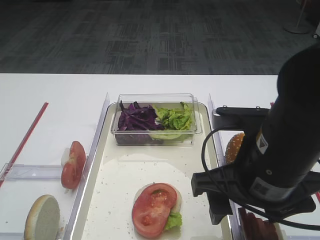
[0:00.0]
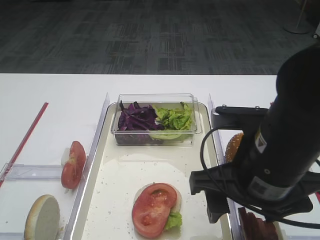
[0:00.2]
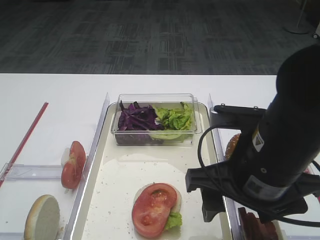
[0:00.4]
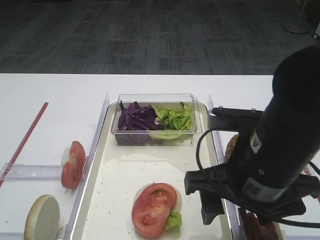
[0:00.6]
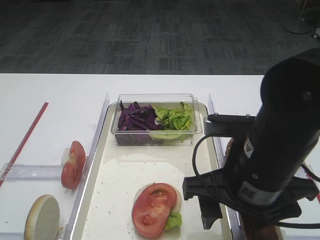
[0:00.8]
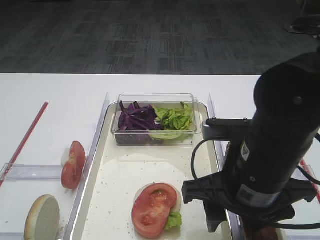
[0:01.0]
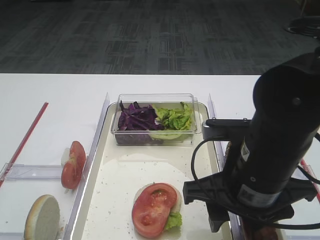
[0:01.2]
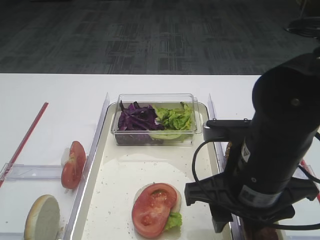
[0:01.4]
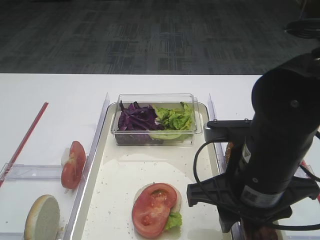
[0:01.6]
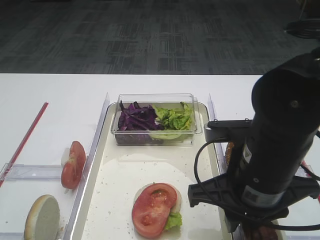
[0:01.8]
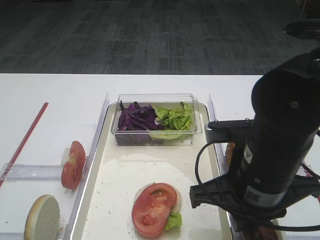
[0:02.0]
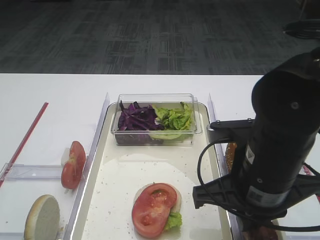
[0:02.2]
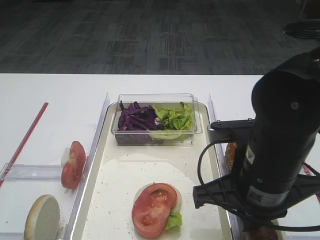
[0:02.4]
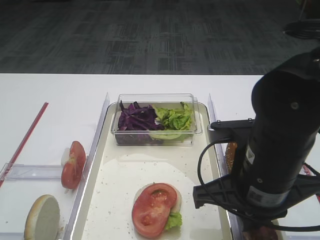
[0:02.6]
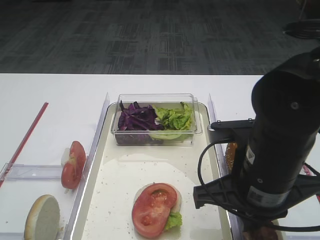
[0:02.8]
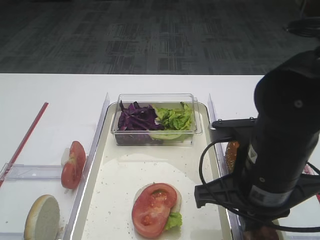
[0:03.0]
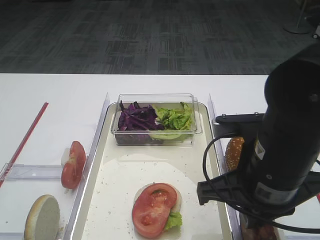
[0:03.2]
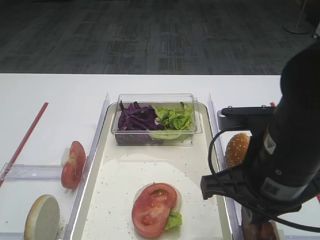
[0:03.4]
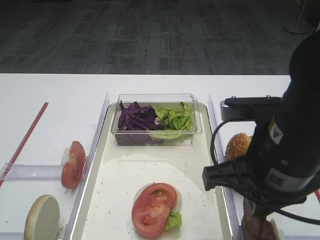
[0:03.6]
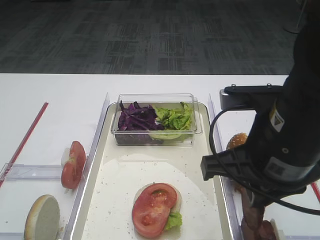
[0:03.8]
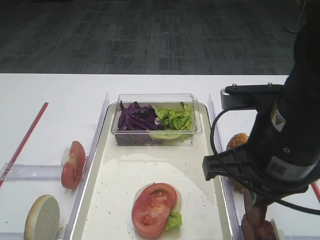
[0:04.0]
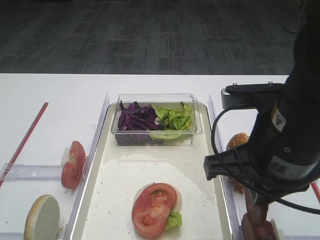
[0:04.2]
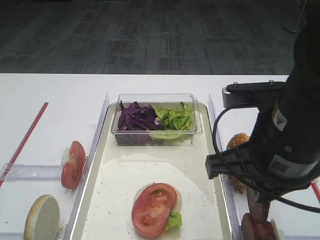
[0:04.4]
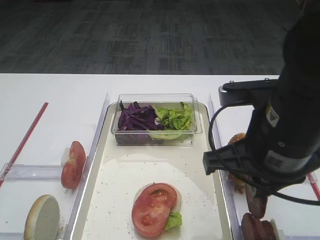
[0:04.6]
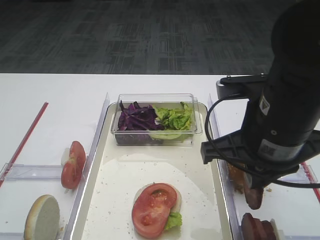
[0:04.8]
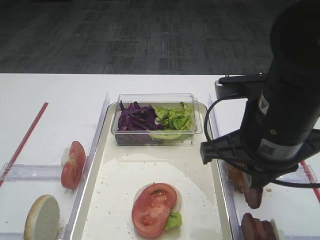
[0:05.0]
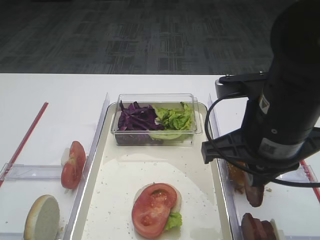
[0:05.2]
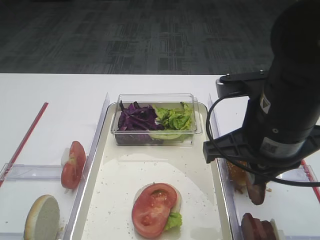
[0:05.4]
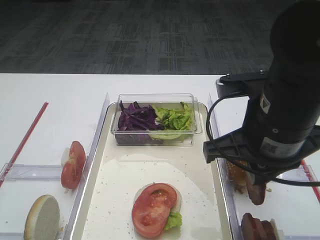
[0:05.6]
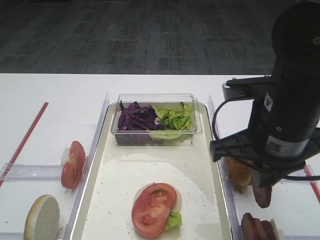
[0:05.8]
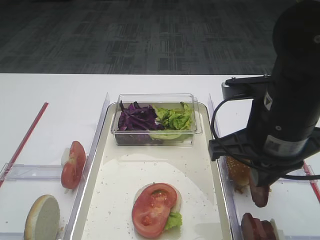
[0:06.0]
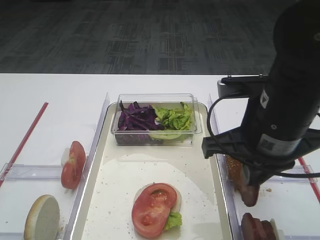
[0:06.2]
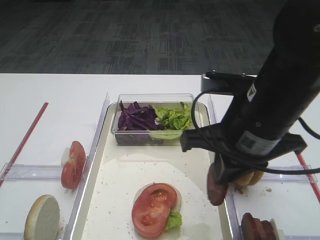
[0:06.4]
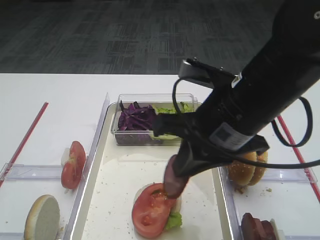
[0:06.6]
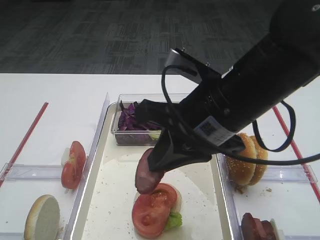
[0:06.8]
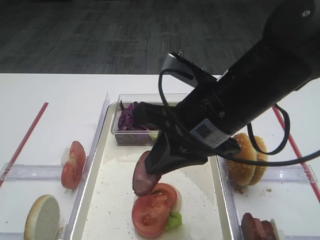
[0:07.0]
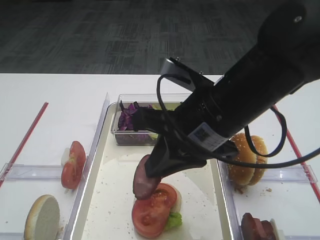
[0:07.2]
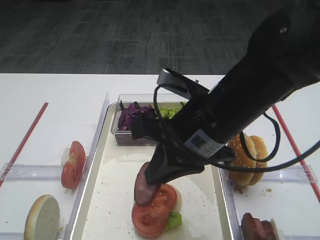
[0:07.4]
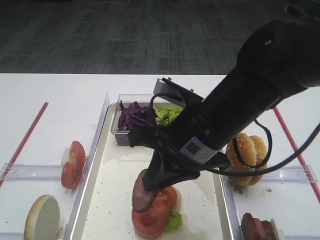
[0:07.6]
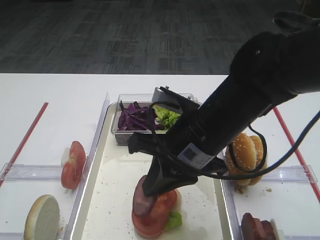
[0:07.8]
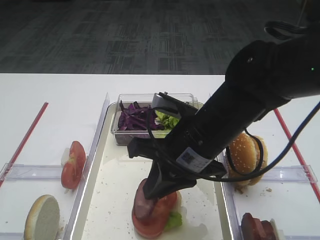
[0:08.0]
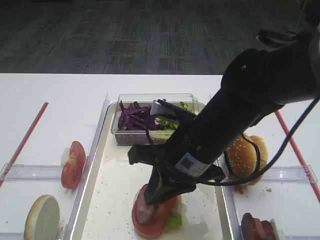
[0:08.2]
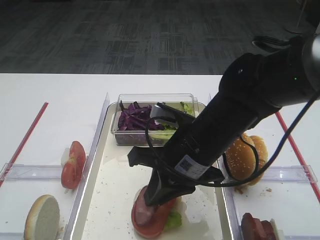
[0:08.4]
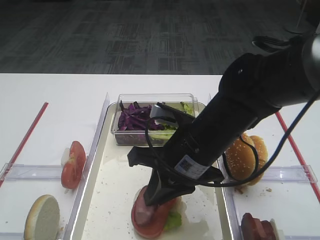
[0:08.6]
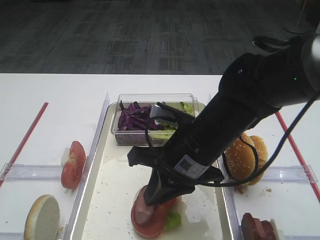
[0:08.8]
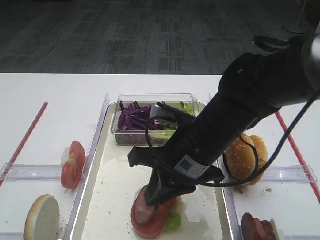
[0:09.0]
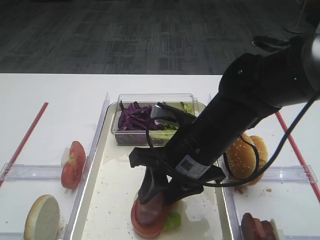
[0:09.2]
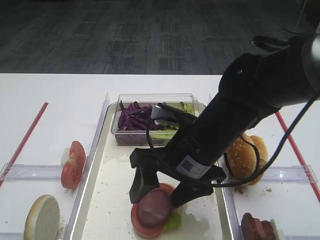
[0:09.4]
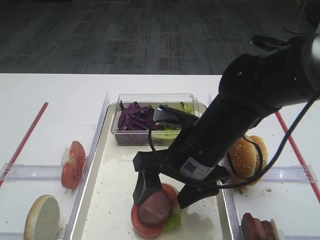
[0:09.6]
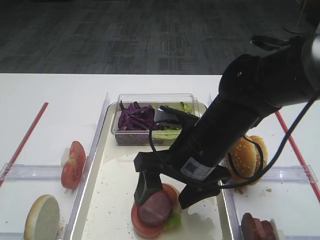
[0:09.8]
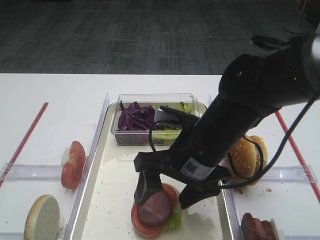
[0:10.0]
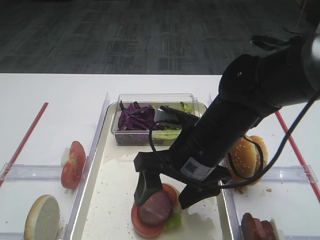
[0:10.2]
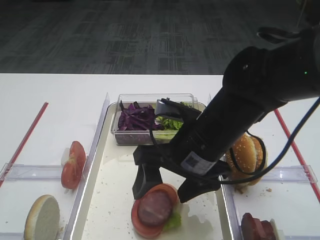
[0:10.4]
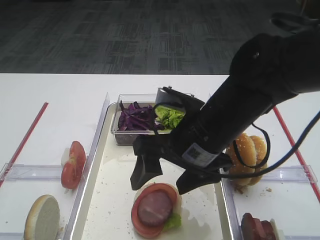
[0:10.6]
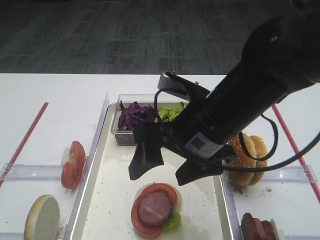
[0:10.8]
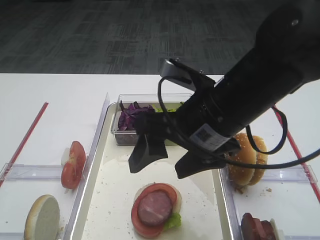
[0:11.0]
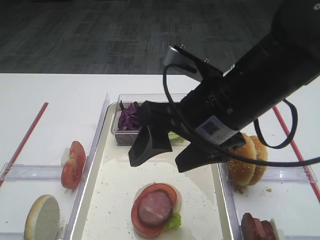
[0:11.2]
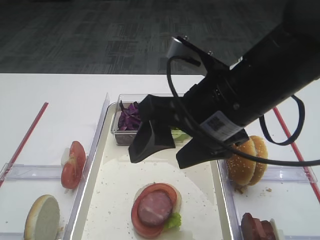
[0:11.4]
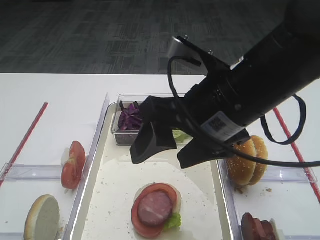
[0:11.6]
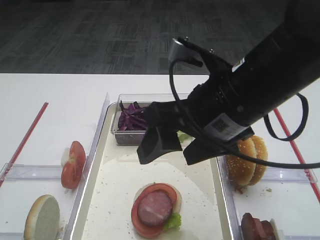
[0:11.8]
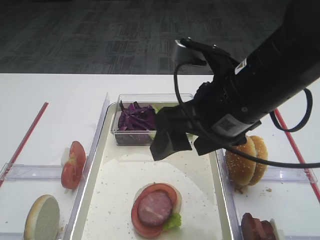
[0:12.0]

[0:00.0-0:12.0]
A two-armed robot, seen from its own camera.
Step, 0:00.0 to 0:04.2: Pick up the cutlet with the right gripper.
Step, 0:04.4 to 0:10.6: Place the cutlet on the tomato slice with the right gripper.
0:00.0 to 0:01.6: The right gripper closes up.
0:01.6 to 0:03.0: The right gripper closes its fingers.
0:03.0 to 0:04.4: The right gripper is displaced upward by approximately 5 cm.
0:04.4 to 0:06.0: The grippers stay close to where they were, moving slightly.
0:06.0 to 0:07.6: The right gripper travels to the left by approximately 5 cm.
0:07.6 to 0:09.0: The grippers make only small movements.
0:09.0 to 0:10.4: The right gripper opens its fingers.
0:10.4 to 0:12.0: The right gripper travels upward by approximately 10 cm.

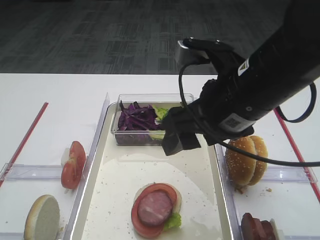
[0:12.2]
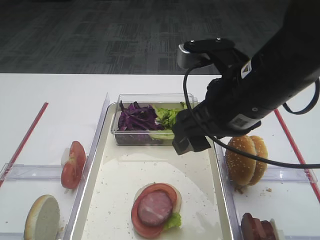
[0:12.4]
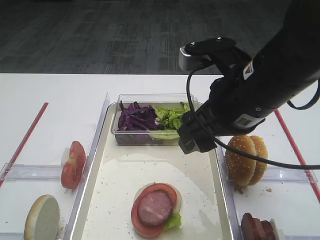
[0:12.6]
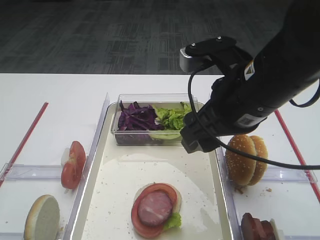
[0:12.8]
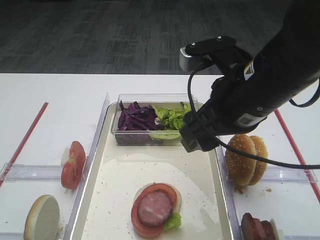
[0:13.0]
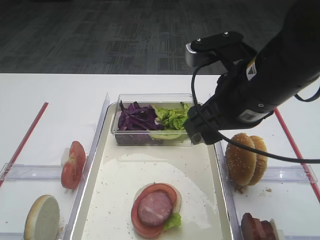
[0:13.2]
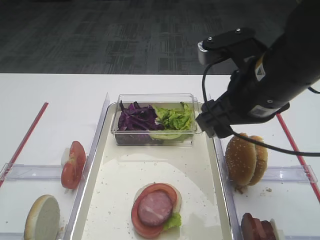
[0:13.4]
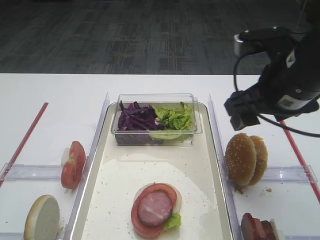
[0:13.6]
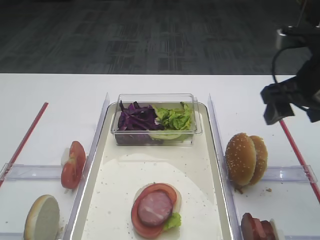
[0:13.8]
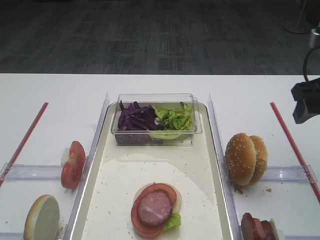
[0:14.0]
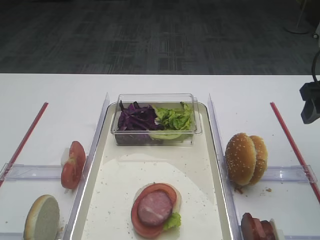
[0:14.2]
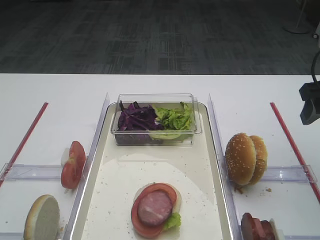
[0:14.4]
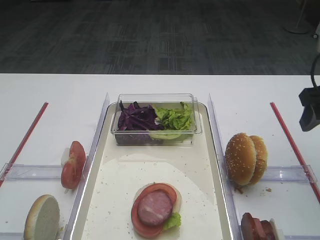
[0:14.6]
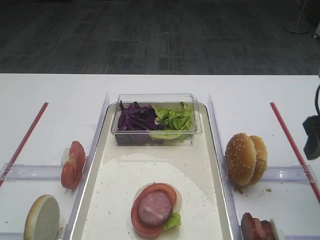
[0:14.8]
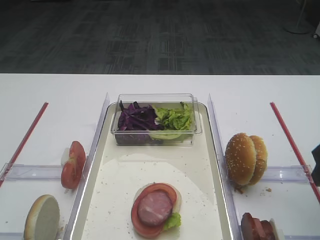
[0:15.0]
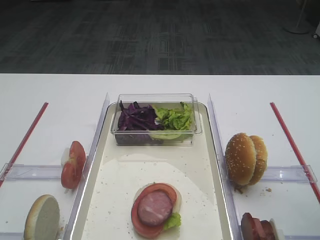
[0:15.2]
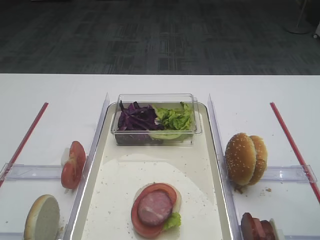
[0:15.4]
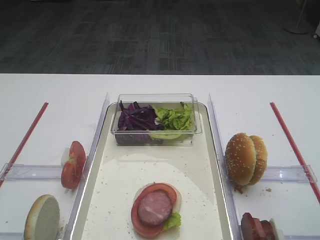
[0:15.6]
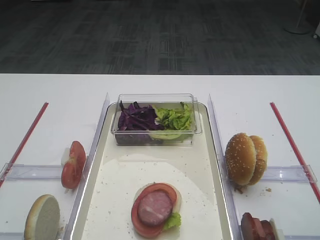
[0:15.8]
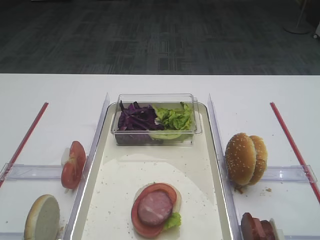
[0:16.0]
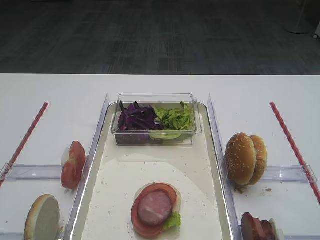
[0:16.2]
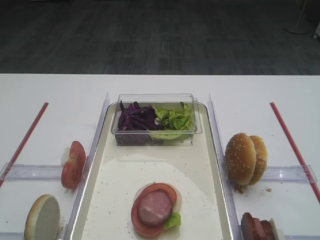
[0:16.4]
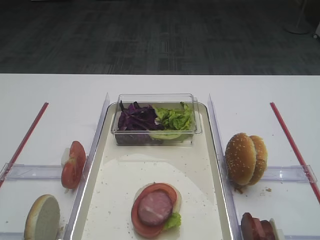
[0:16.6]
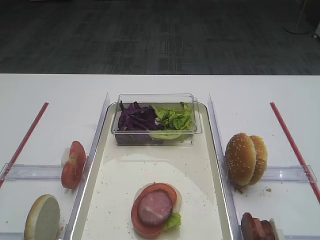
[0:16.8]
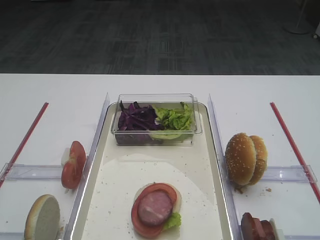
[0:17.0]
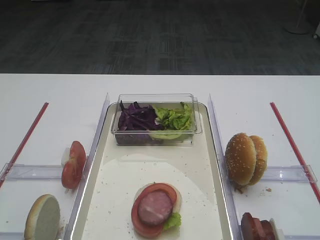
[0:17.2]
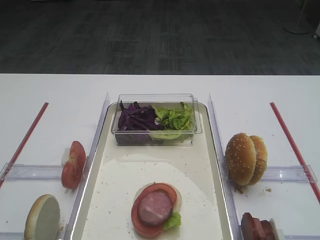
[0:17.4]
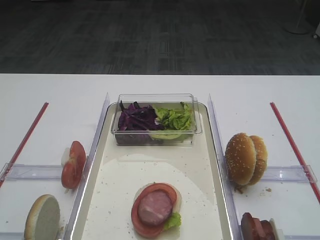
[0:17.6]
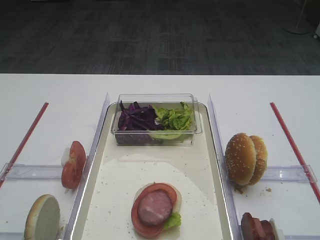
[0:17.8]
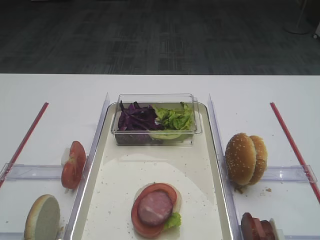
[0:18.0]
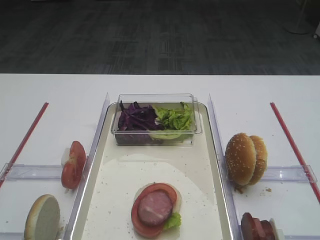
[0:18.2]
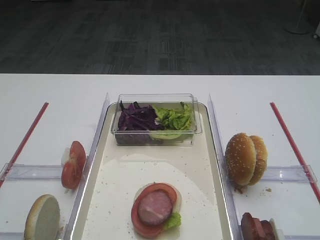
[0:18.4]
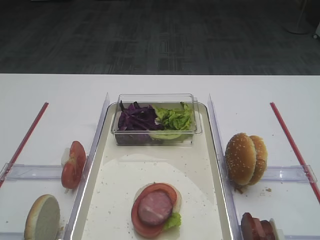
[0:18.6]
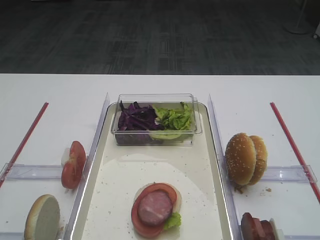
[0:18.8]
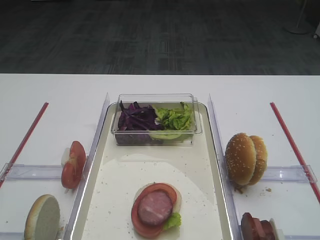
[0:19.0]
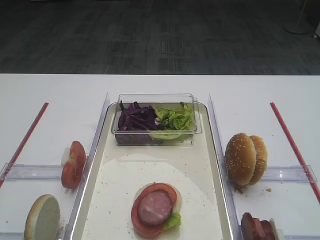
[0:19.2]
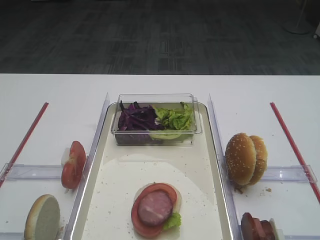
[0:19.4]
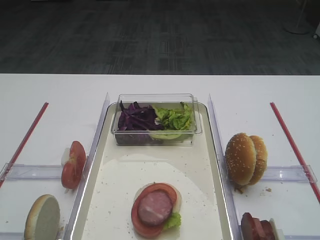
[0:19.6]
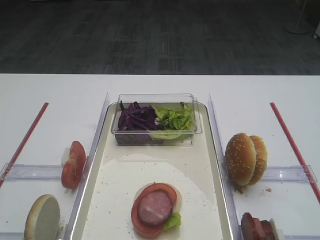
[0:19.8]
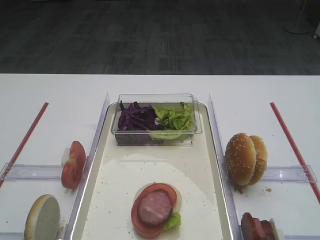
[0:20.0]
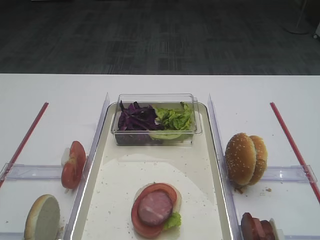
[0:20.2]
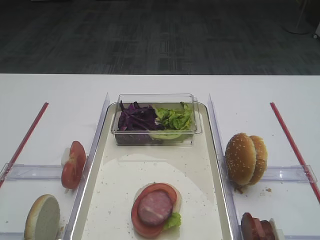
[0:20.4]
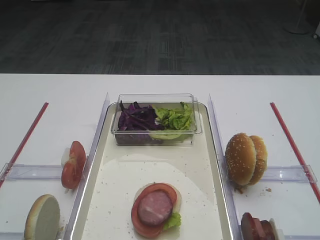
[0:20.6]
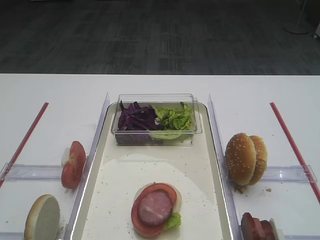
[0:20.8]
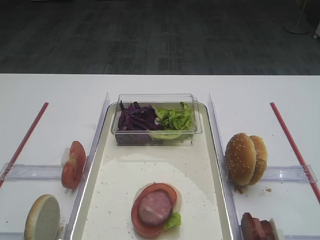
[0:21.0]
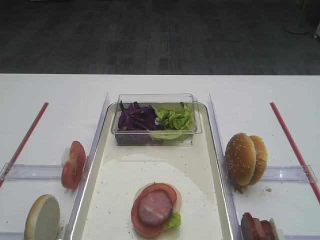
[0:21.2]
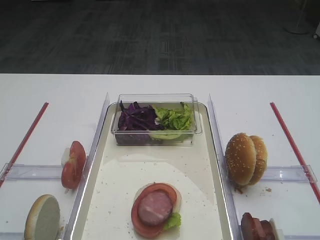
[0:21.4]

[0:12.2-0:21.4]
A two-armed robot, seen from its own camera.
0:12.2 to 0:13.8: The right gripper goes some 15 cm to the right and forward.
0:13.8 to 0:15.2: The right gripper goes approximately 10 cm backward and to the right.
0:18.4 to 0:21.4: The two grippers keep their place.

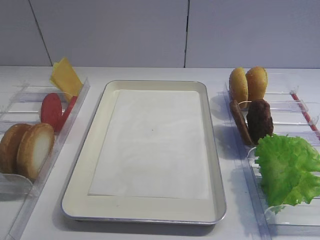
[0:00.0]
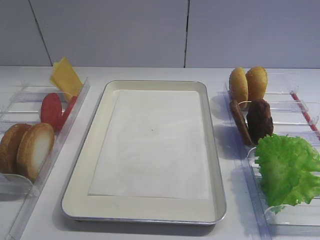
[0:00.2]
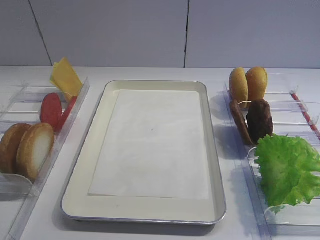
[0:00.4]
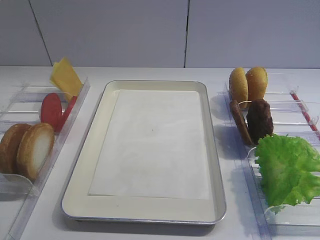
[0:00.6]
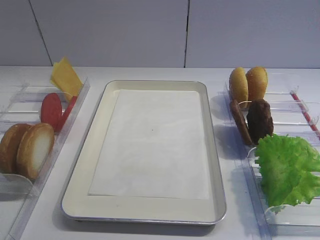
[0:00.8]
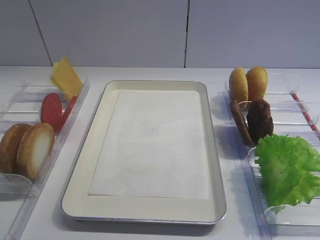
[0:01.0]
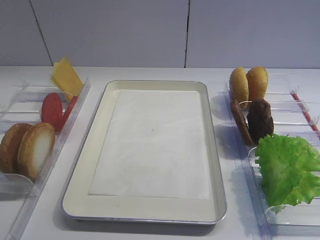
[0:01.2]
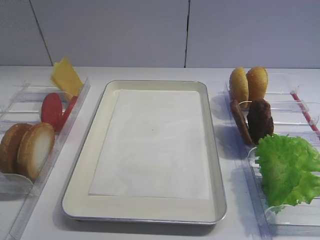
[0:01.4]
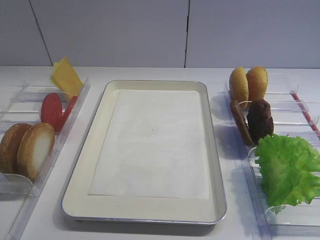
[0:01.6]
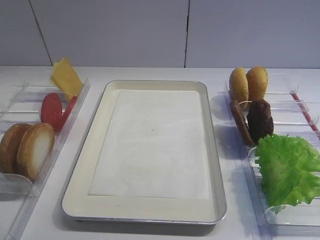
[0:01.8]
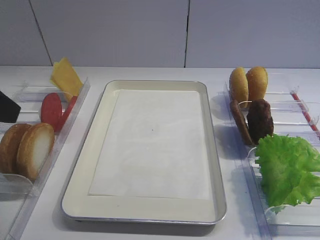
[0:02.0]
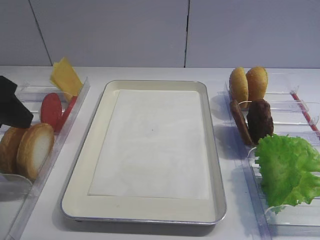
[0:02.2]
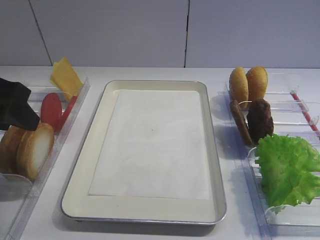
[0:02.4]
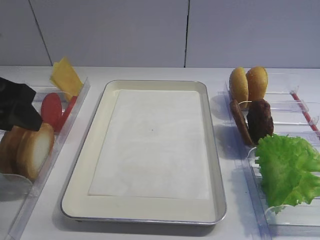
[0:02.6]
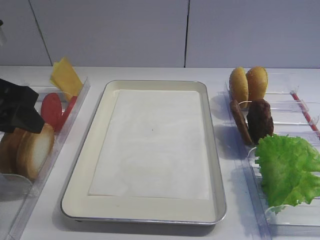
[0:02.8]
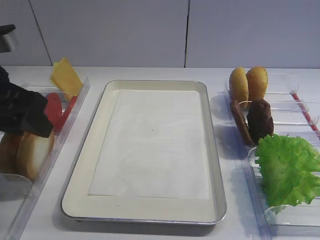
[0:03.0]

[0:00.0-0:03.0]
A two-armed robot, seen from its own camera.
0:01.6 to 0:03.0: The left gripper shifts about 15 cm forward.
